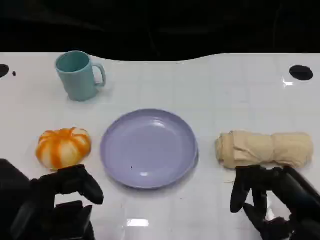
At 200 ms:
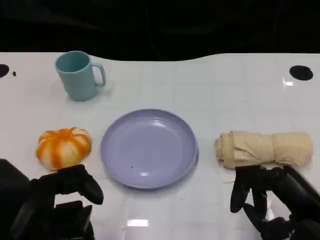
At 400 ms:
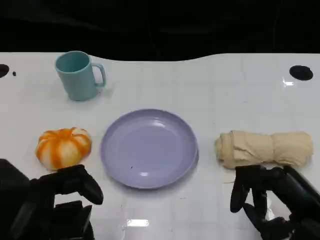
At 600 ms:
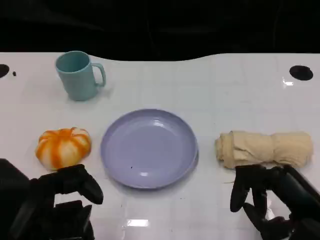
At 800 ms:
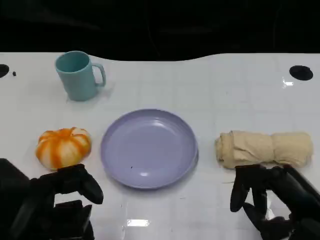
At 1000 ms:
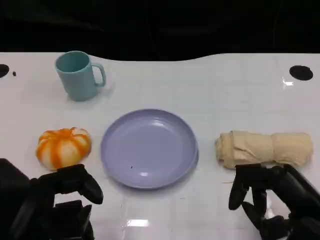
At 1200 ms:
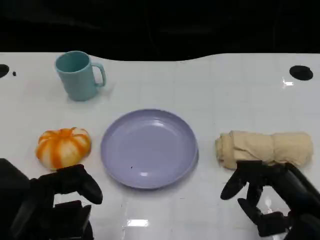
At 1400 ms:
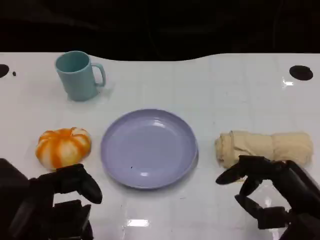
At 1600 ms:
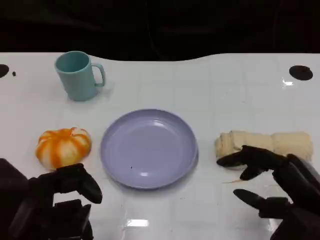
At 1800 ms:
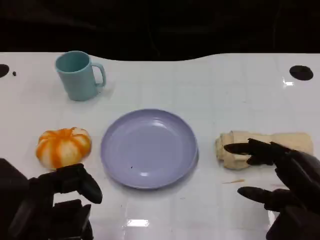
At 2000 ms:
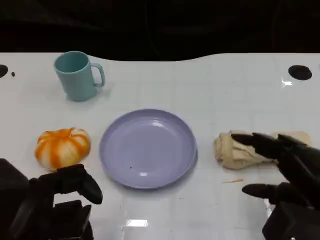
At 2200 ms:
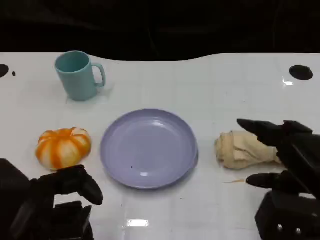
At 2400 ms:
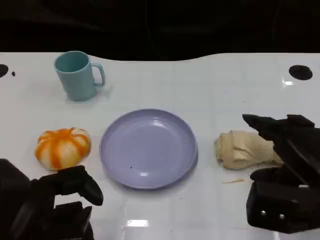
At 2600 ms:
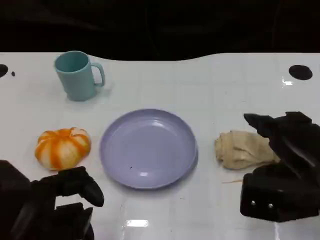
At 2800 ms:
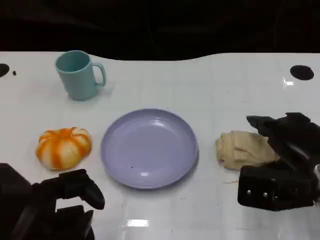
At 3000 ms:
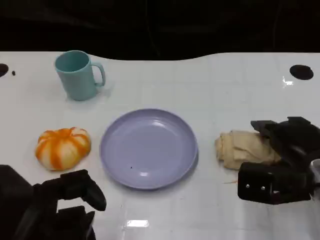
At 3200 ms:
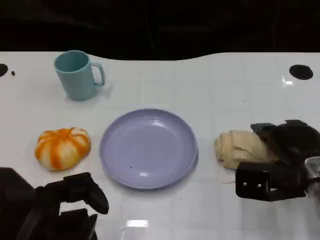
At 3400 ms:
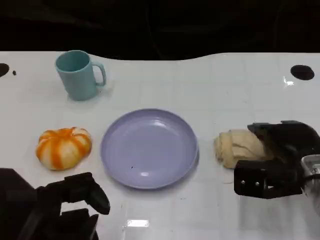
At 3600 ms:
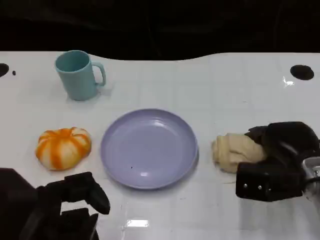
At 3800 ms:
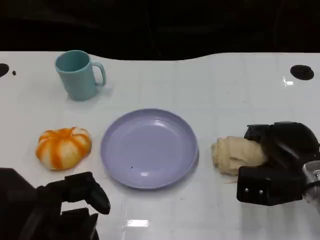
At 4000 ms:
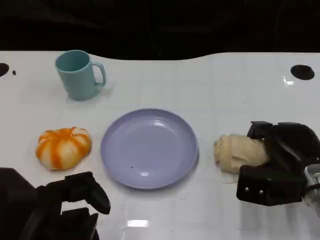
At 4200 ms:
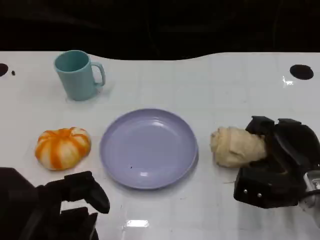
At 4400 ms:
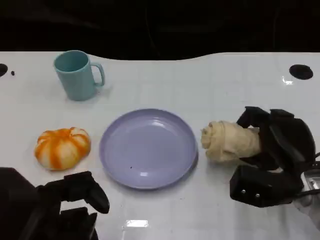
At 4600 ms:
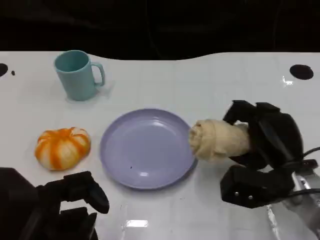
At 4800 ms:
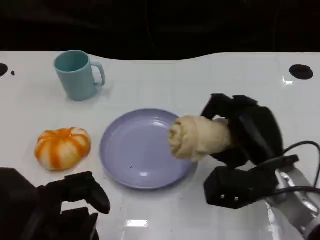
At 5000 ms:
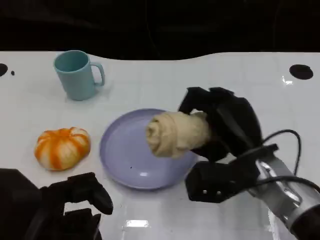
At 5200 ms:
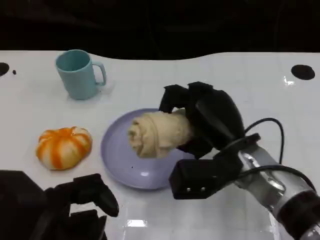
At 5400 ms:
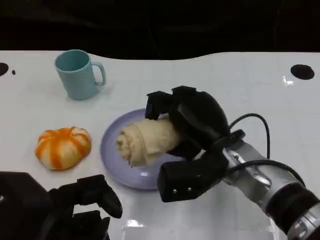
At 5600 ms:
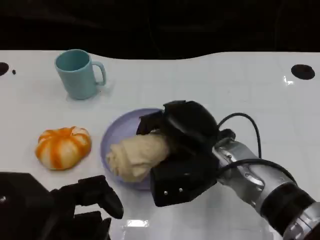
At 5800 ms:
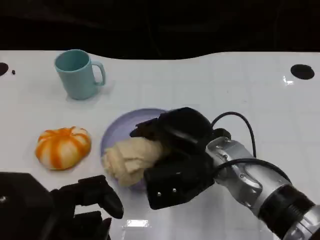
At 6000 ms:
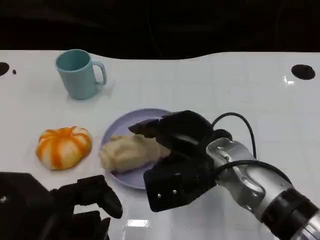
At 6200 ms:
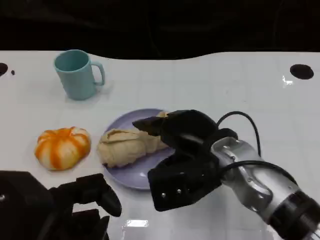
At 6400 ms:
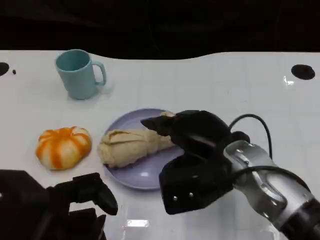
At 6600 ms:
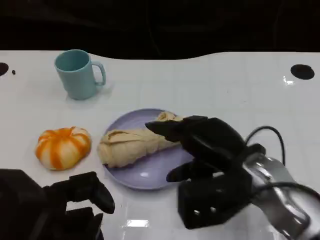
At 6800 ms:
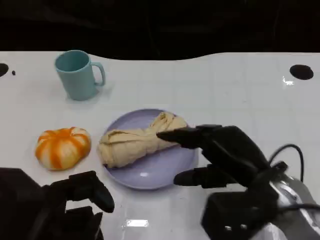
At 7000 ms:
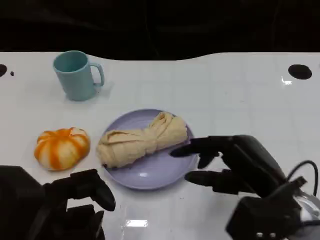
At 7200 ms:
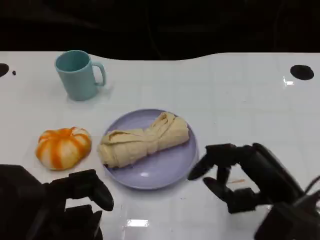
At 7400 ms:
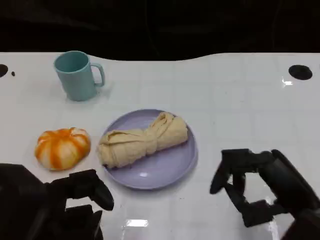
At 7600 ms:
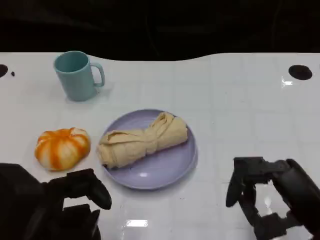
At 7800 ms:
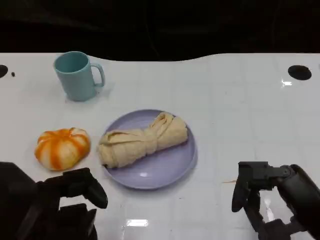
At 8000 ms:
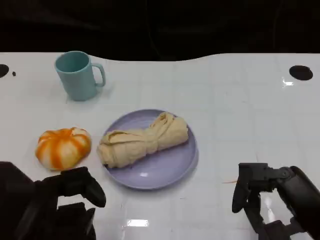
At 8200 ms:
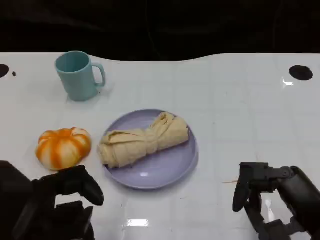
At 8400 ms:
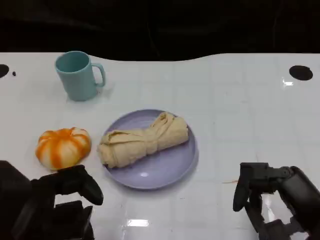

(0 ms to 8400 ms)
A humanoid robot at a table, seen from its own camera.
Task of the whole recording: Grasp the towel on the left side of the plate with the left hand and place it into the plate.
0 ms - 1400 ms: The two hands keep their place.
1400 ms - 2800 ms: The right hand shifts some 10 cm forward.
2800 ms - 4200 ms: The right hand shifts approximately 5 cm downward.
4200 ms - 5600 ms: The right hand travels to the left and upward by roughly 15 cm.
5600 ms - 7000 ms: The right hand shifts about 10 cm to the right and backward.
7000 ms - 8400 ms: The right hand heads backward, covering some 5 cm.

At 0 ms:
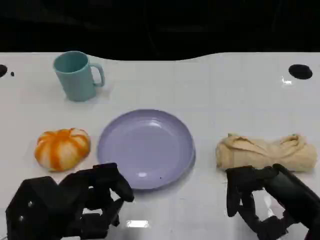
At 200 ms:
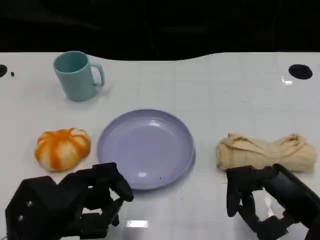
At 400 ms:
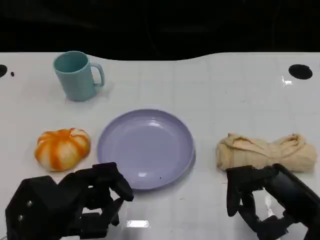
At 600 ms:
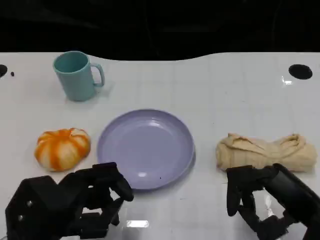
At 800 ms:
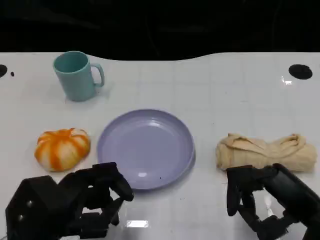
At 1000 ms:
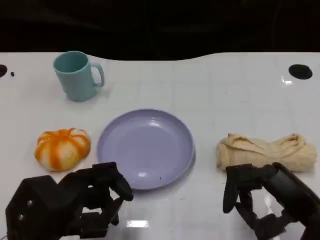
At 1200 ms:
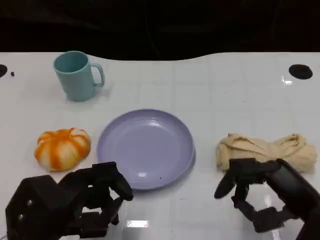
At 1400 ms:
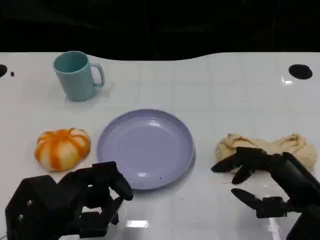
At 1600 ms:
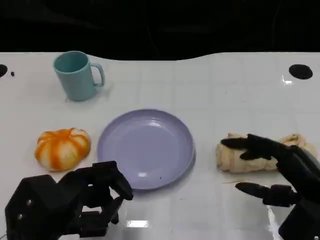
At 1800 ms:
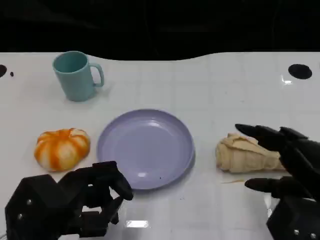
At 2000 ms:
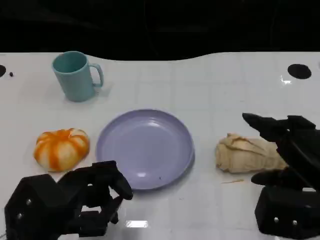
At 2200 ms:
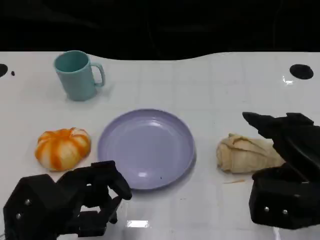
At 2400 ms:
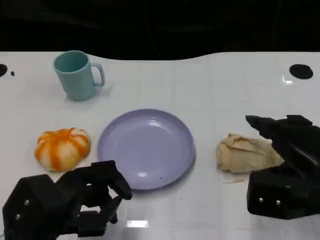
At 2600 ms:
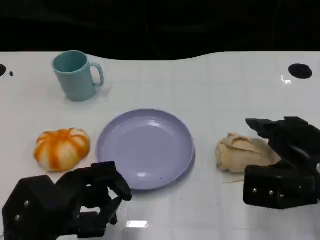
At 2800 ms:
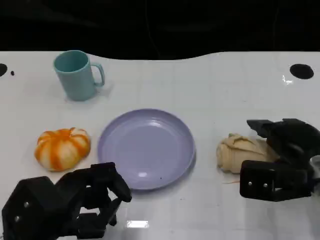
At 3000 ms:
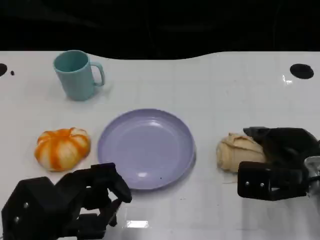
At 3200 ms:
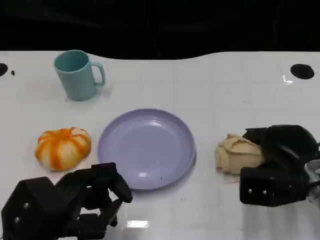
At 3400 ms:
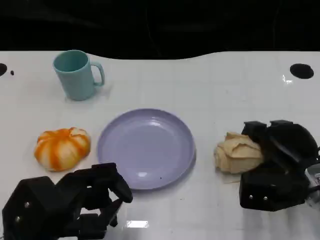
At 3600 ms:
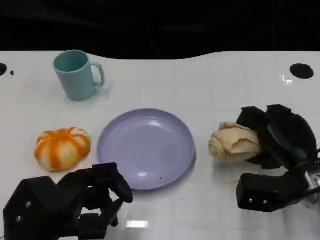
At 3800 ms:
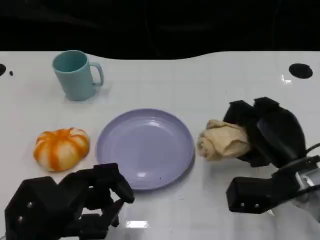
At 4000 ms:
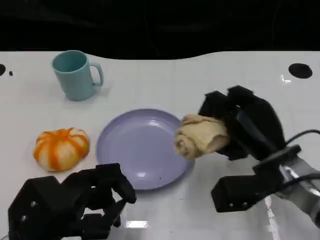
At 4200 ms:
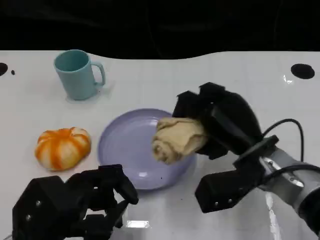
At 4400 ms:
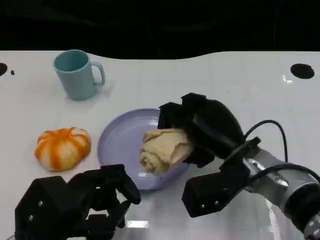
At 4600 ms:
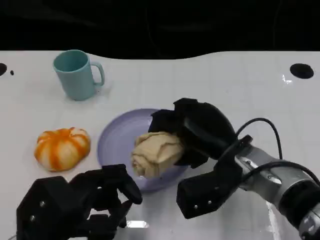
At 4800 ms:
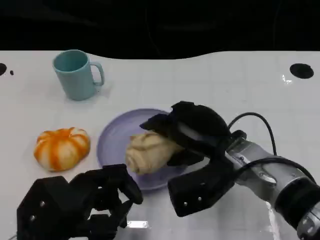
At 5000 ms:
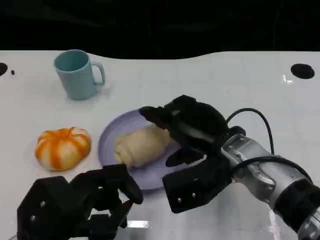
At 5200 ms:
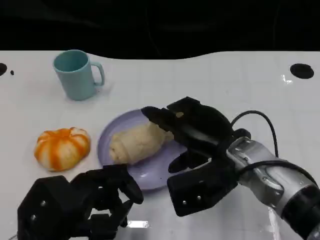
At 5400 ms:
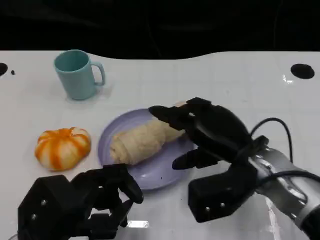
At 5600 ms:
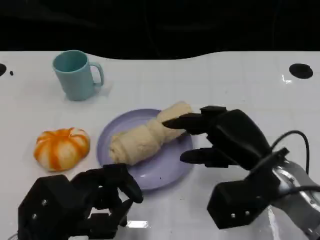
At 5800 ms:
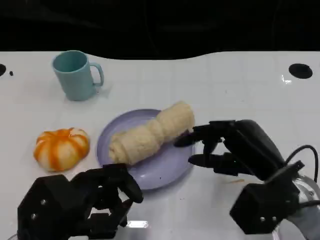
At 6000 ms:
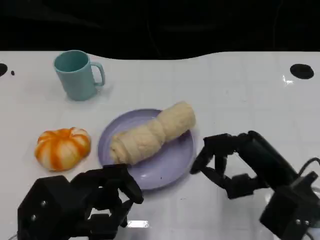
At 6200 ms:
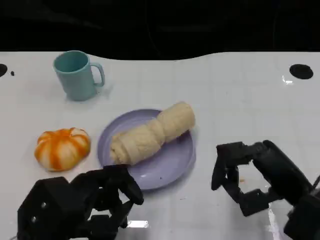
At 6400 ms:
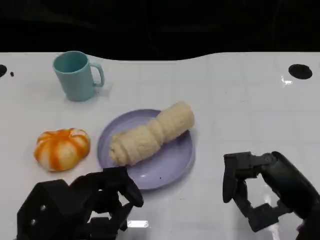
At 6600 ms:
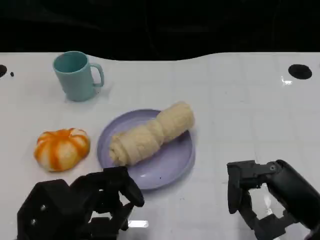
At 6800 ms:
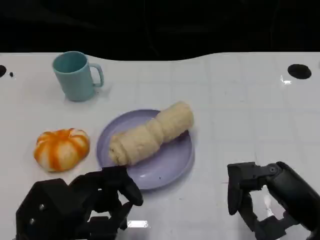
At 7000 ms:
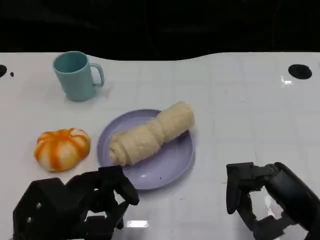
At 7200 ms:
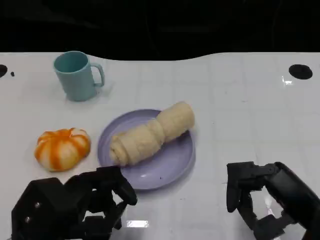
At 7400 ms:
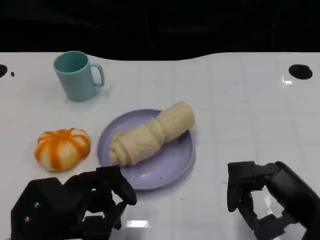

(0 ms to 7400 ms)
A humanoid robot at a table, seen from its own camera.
Task of the whole recording: Grasp the towel on the left side of the plate with the left hand and place it into the plate.
0 ms - 1400 ms: The hands move only a little.
1400 ms - 3000 ms: The right hand goes about 10 cm forward.
3000 ms - 4400 ms: The right hand is displaced to the left by some 10 cm.
4400 ms - 6000 ms: The right hand is displaced to the right and backward by some 10 cm.
6000 ms - 7400 ms: The right hand shifts by roughly 5 cm.

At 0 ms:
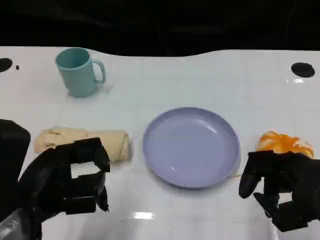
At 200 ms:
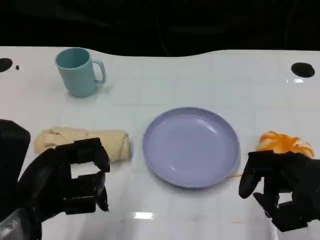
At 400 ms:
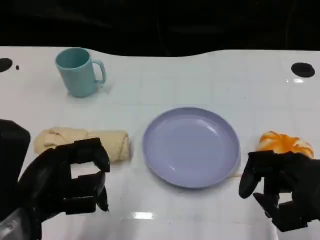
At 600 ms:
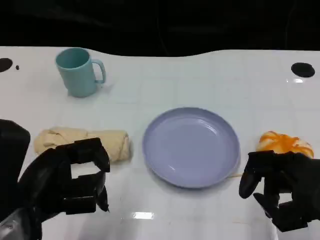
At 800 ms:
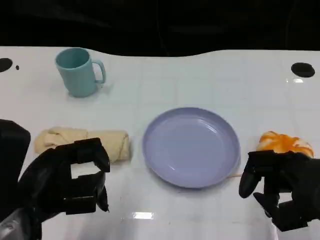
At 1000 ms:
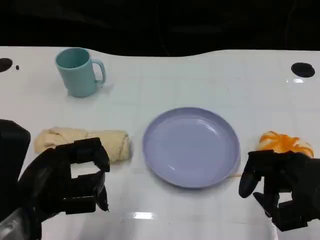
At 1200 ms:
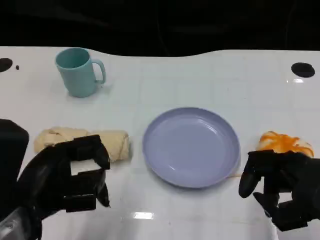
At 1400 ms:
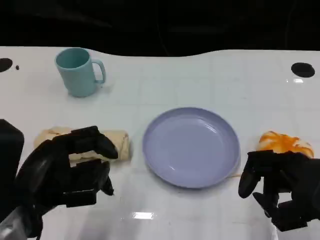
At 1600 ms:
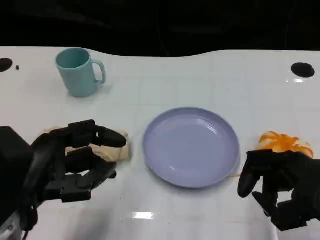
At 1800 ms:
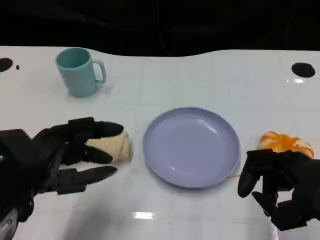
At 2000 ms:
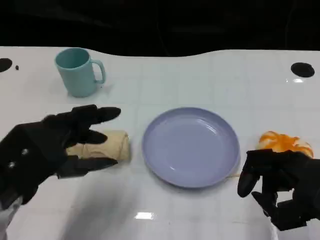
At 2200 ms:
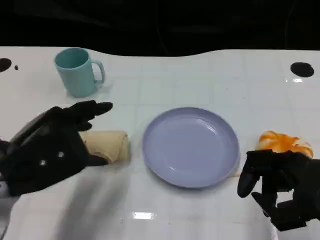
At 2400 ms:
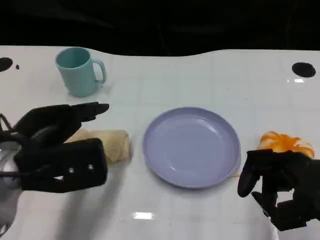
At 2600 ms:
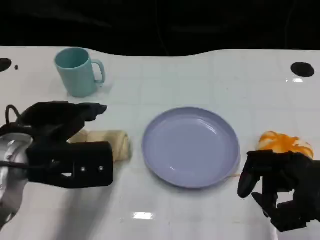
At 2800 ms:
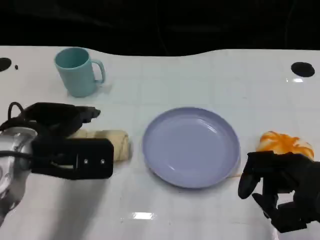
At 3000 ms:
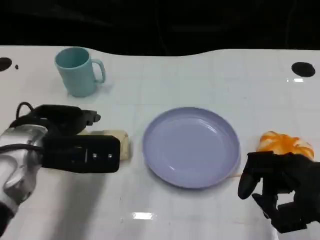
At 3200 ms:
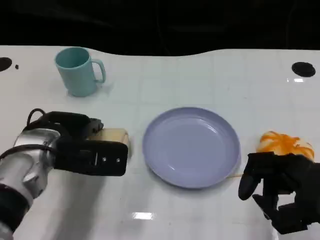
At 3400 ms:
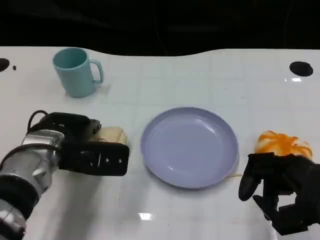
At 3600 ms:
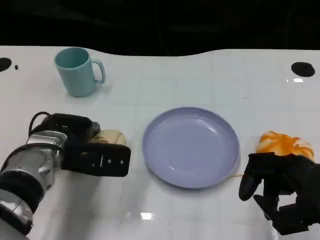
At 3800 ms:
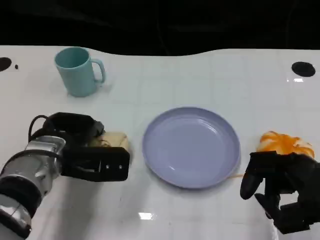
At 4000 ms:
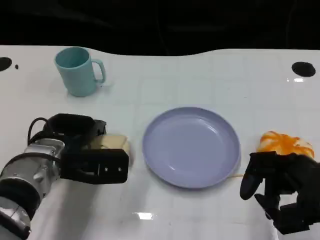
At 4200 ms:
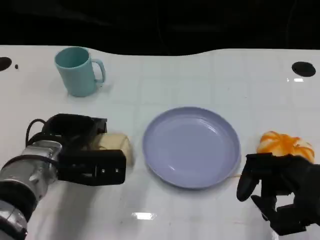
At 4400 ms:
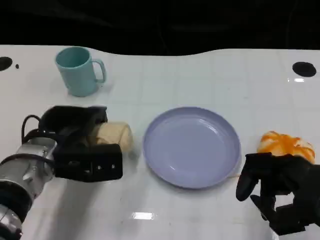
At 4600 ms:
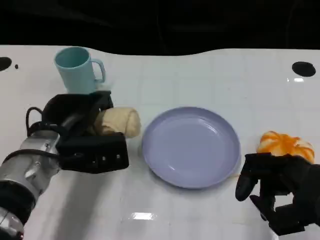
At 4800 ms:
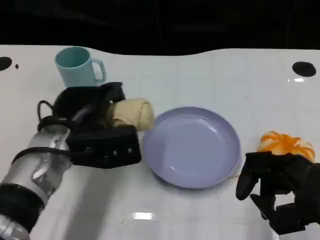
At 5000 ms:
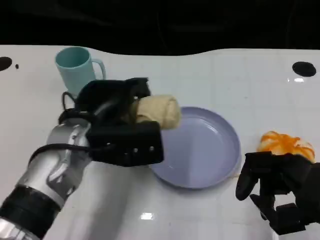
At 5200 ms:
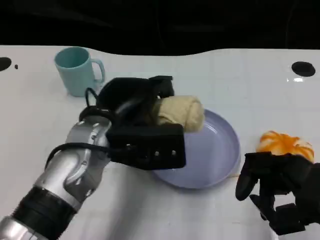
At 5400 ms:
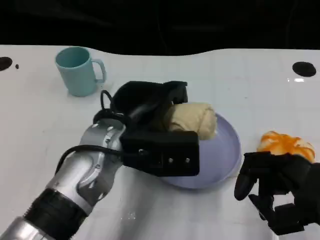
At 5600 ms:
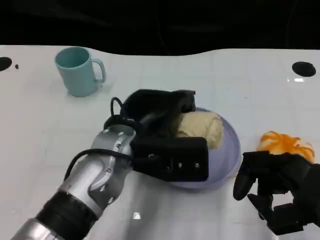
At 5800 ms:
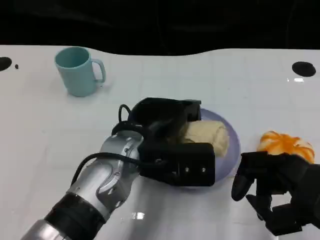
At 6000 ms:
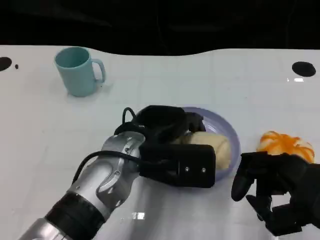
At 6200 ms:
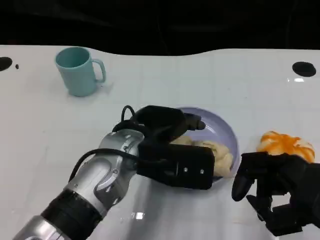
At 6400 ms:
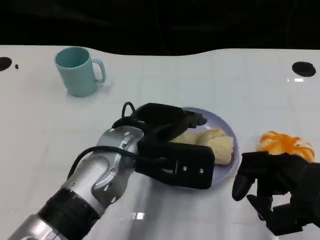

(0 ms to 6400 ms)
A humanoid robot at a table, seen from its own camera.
Task of the whole recording: Grasp the towel on the left side of the plate with the left hand and place it into the plate.
1600 ms - 3200 ms: The left hand goes approximately 10 cm forward.
4800 ms - 6400 ms: The left hand moves to the right, roughly 10 cm.
